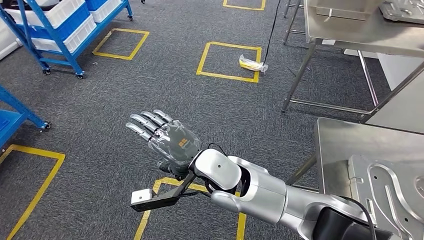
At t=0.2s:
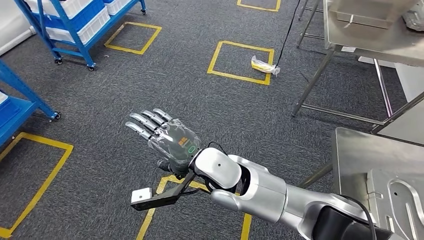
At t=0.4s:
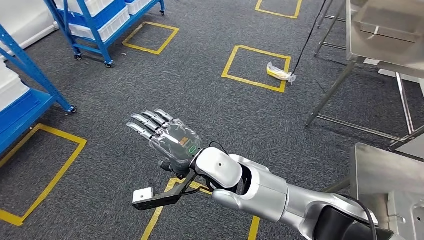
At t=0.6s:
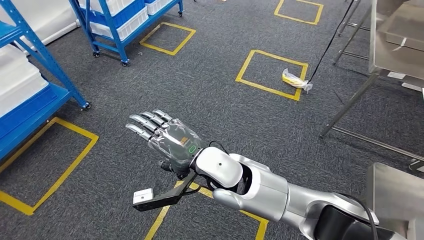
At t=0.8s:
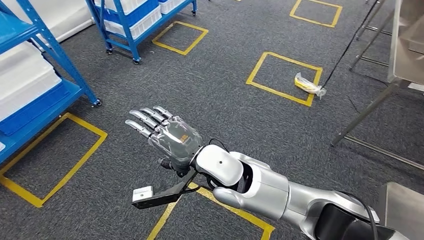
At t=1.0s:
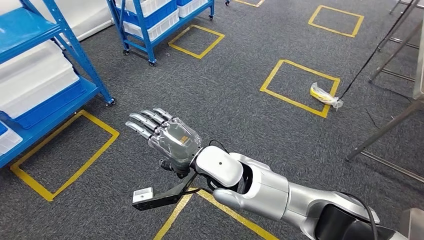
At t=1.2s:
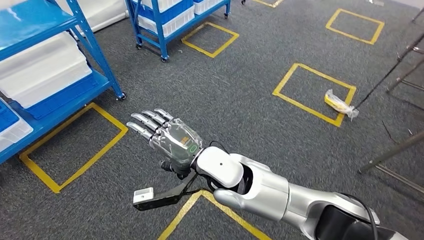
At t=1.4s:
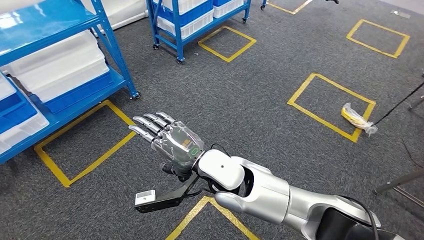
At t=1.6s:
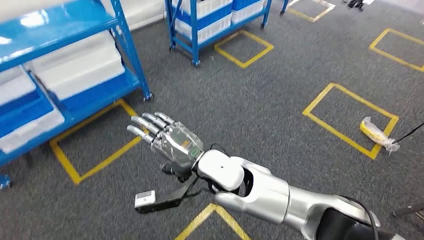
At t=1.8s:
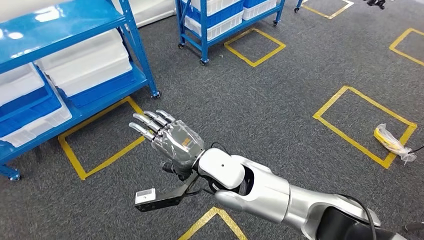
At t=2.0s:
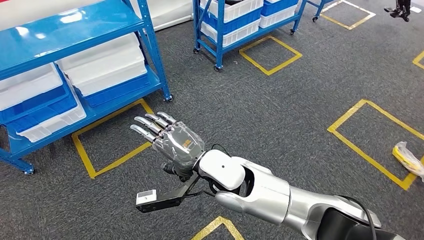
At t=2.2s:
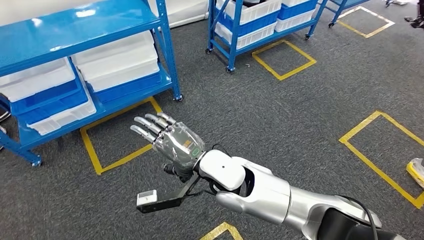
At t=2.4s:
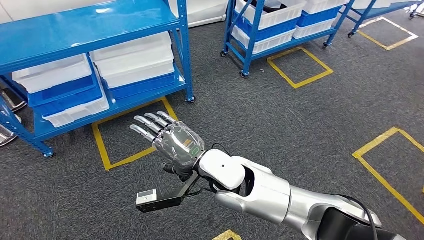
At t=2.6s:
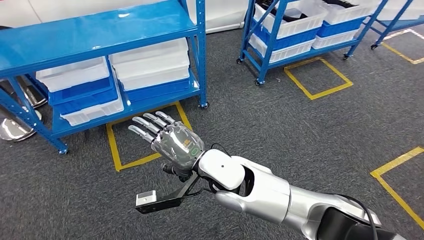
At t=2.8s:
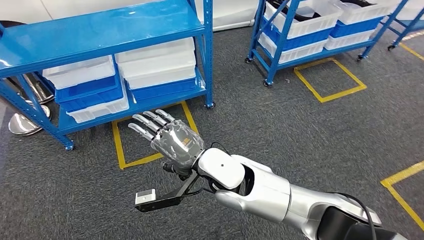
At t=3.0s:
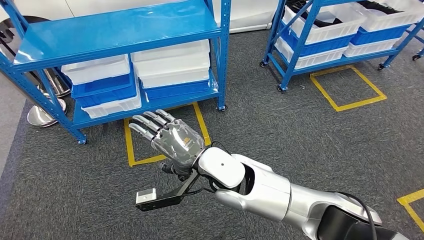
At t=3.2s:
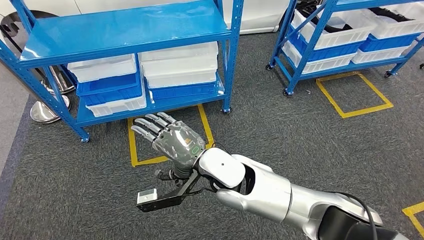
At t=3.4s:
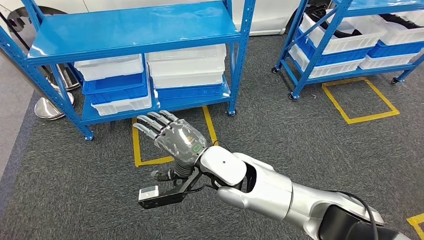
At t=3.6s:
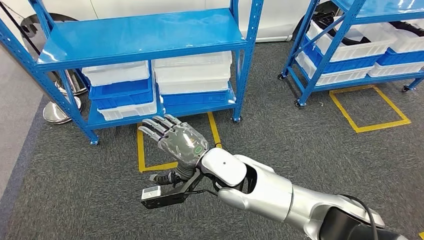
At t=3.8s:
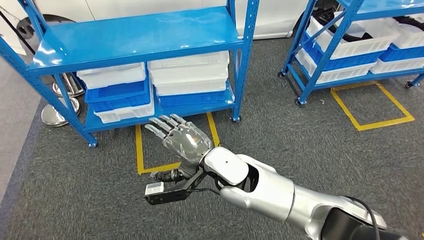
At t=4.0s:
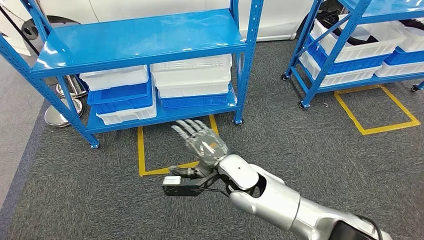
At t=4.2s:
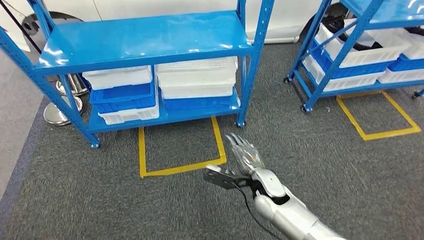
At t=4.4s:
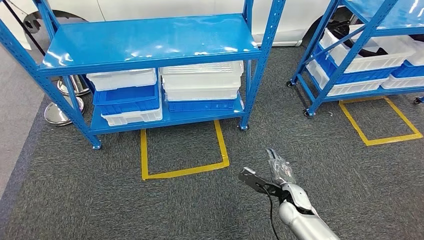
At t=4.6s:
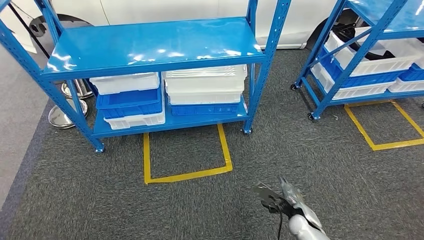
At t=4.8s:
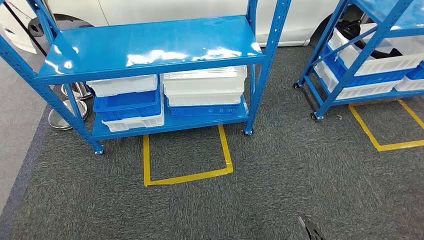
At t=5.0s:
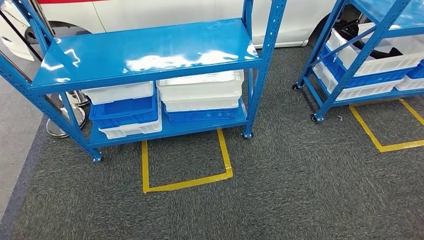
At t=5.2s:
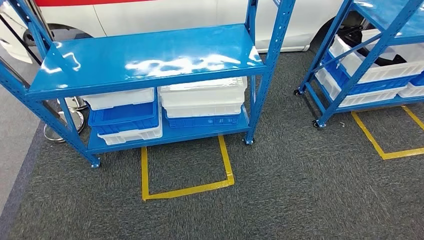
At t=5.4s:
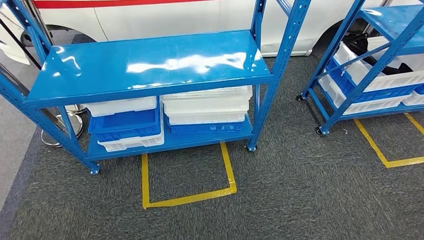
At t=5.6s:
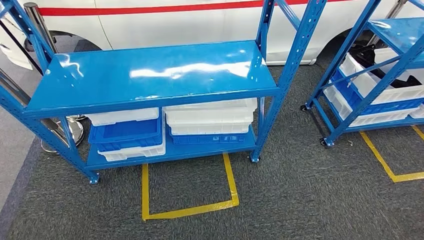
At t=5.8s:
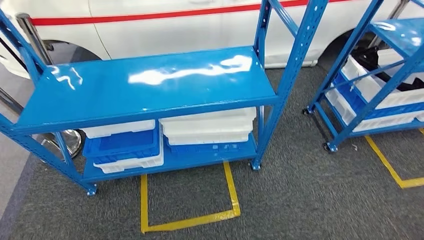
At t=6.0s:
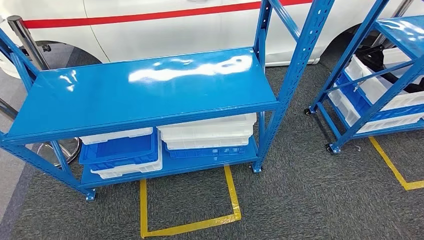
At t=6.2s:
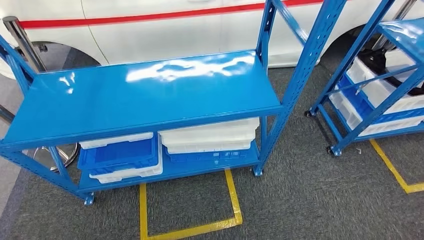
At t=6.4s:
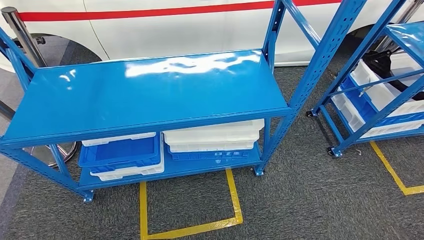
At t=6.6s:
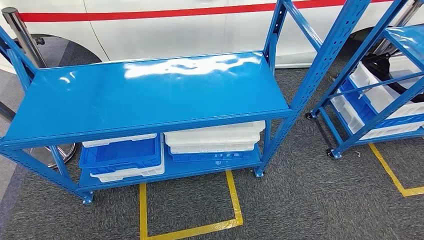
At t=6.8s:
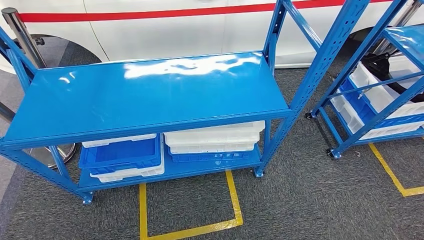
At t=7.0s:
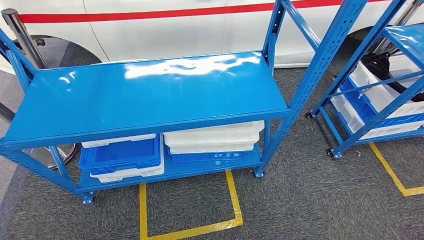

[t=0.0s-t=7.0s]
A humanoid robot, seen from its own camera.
Step, t=0.0s to t=7.0s: Move to the initial position of the shelf.

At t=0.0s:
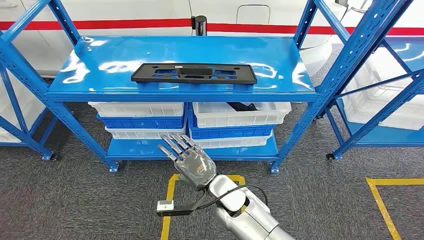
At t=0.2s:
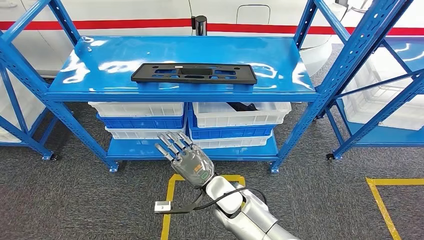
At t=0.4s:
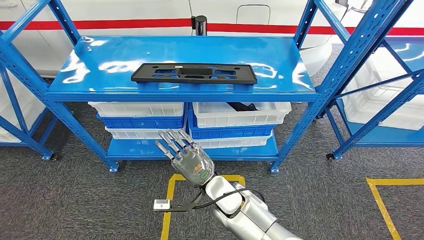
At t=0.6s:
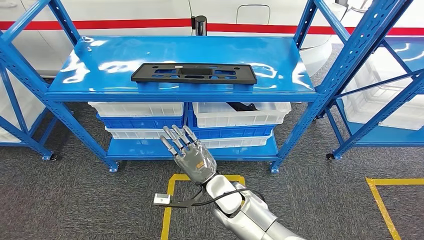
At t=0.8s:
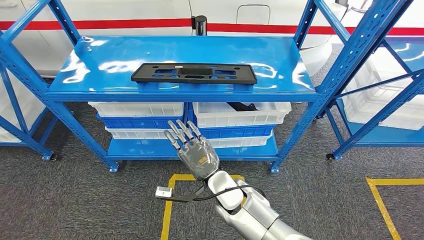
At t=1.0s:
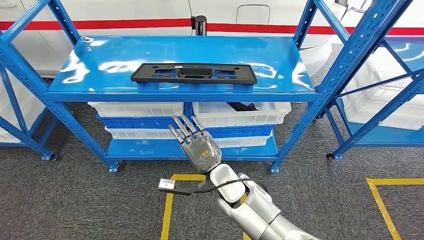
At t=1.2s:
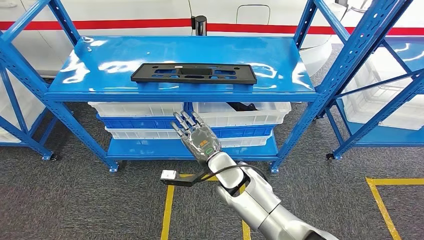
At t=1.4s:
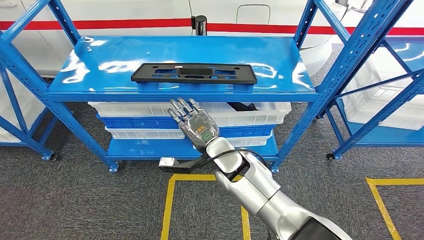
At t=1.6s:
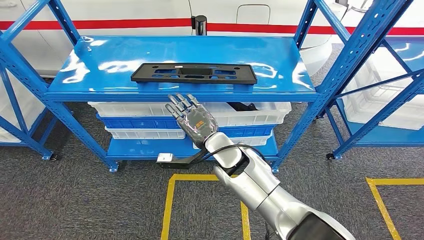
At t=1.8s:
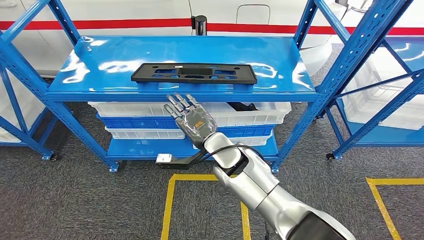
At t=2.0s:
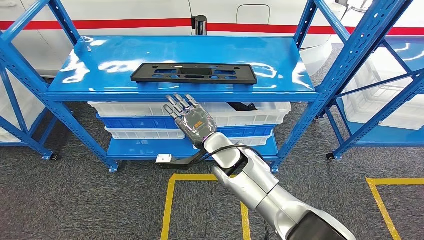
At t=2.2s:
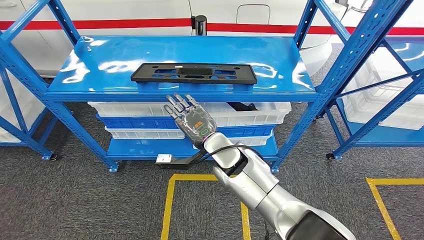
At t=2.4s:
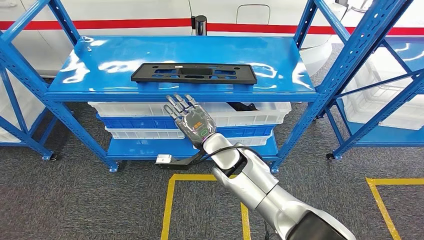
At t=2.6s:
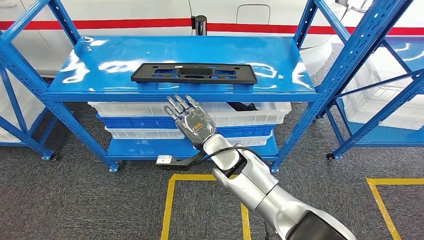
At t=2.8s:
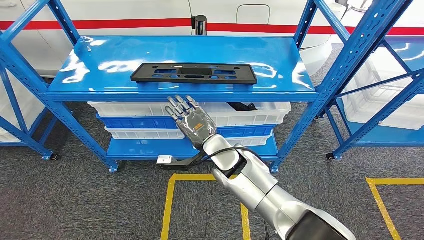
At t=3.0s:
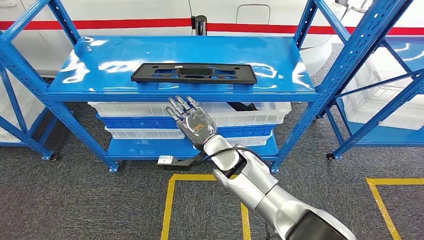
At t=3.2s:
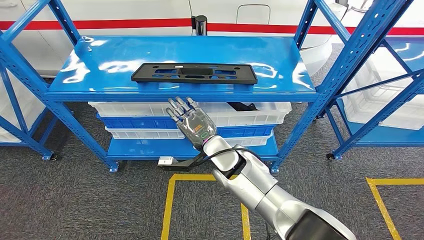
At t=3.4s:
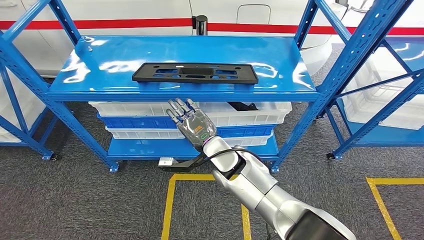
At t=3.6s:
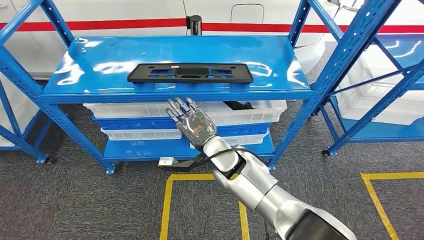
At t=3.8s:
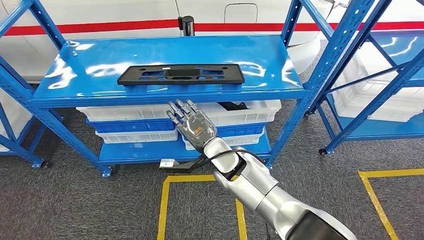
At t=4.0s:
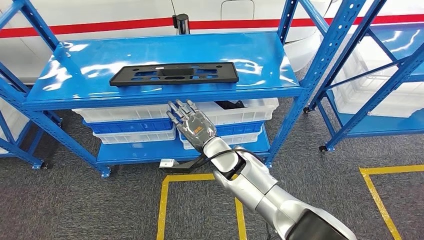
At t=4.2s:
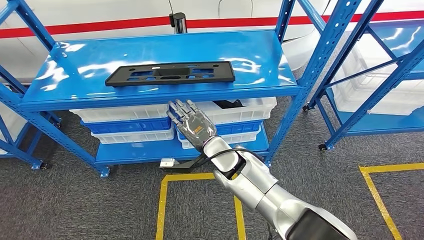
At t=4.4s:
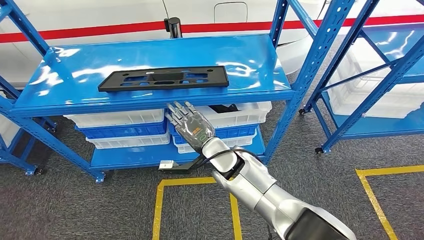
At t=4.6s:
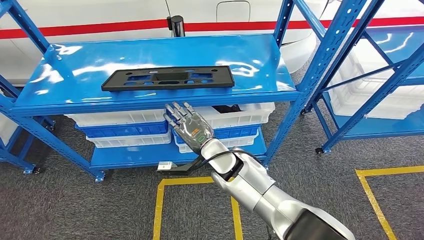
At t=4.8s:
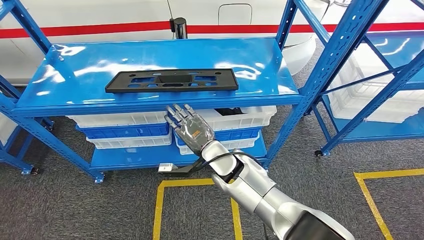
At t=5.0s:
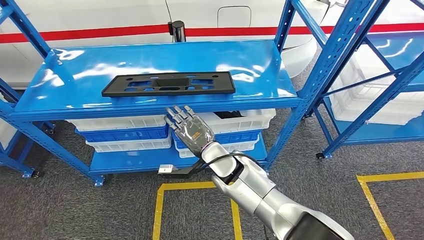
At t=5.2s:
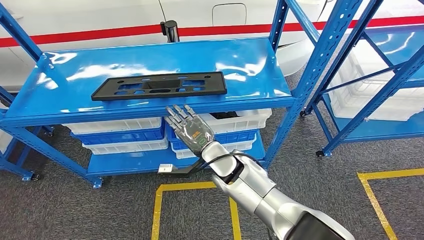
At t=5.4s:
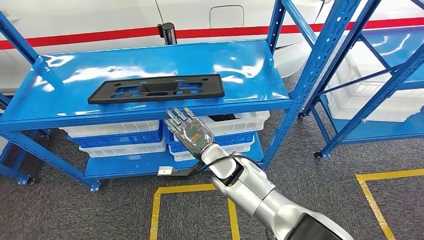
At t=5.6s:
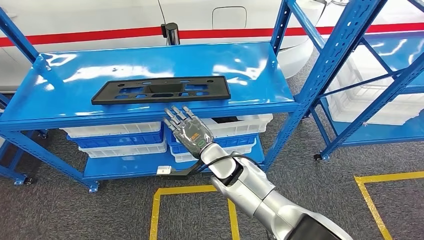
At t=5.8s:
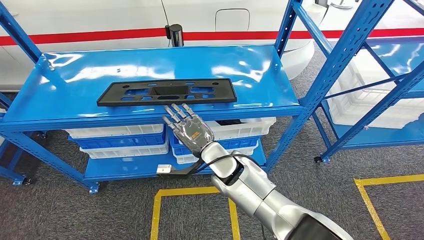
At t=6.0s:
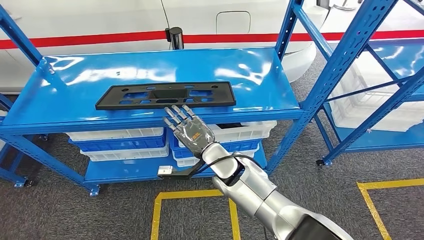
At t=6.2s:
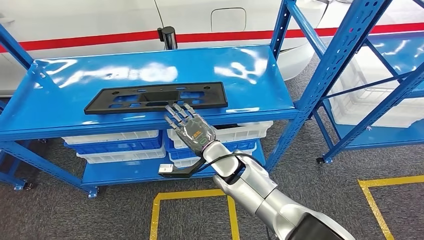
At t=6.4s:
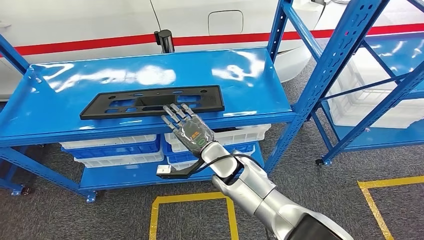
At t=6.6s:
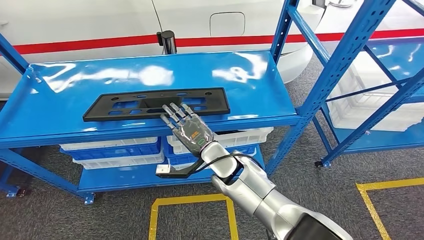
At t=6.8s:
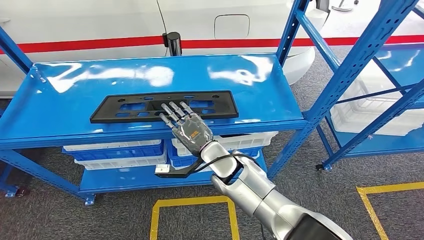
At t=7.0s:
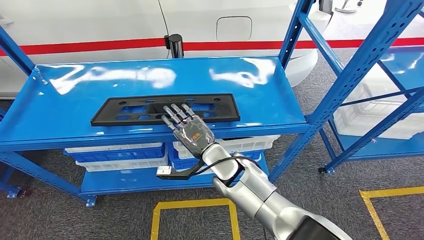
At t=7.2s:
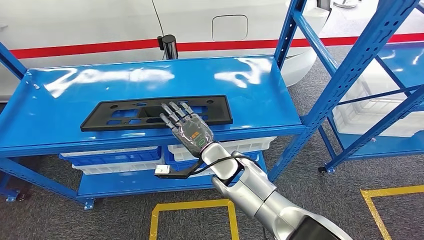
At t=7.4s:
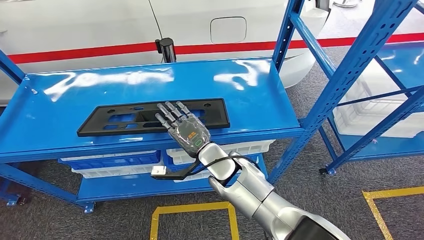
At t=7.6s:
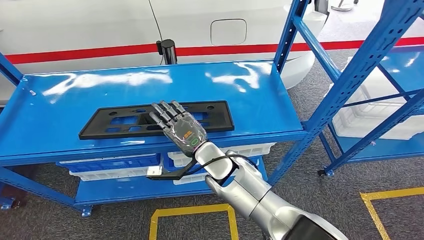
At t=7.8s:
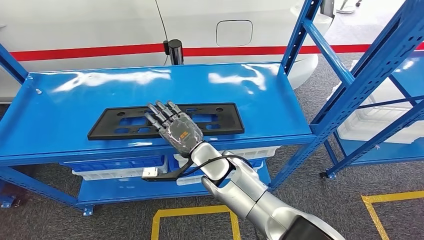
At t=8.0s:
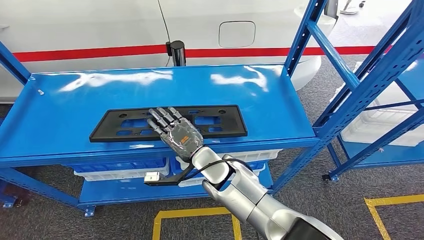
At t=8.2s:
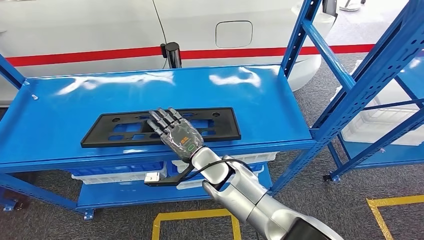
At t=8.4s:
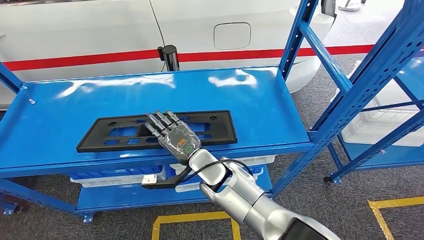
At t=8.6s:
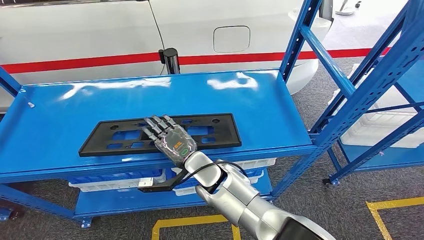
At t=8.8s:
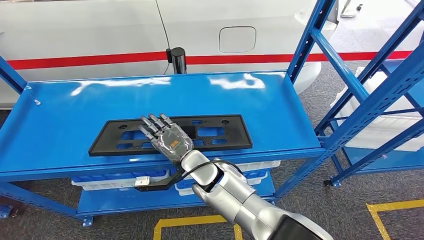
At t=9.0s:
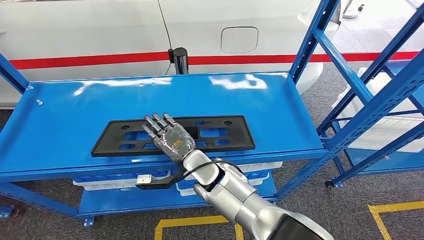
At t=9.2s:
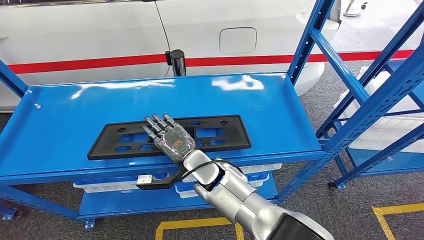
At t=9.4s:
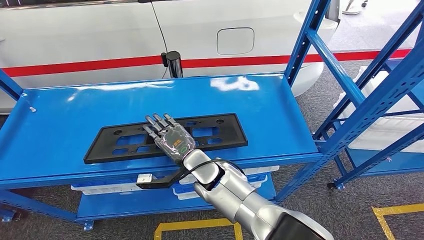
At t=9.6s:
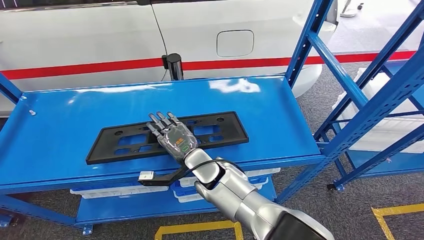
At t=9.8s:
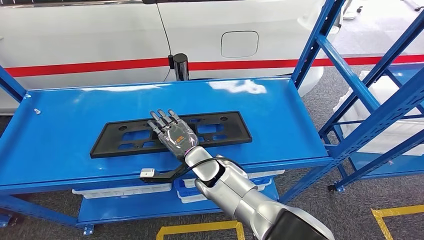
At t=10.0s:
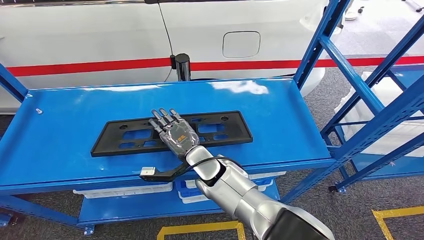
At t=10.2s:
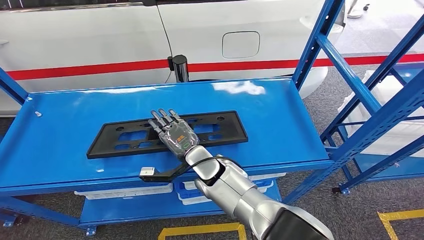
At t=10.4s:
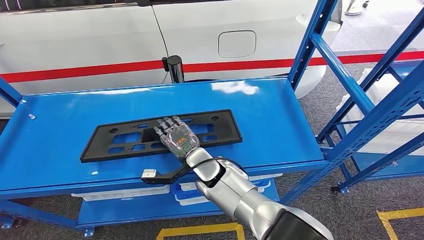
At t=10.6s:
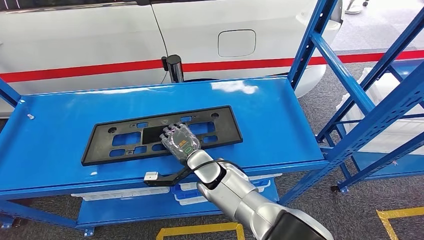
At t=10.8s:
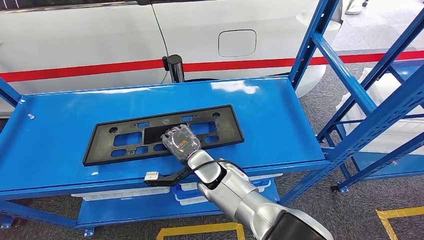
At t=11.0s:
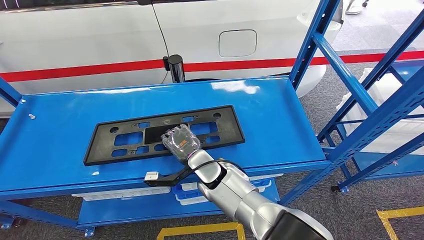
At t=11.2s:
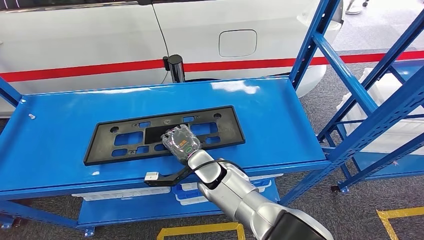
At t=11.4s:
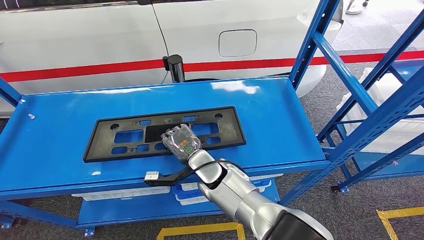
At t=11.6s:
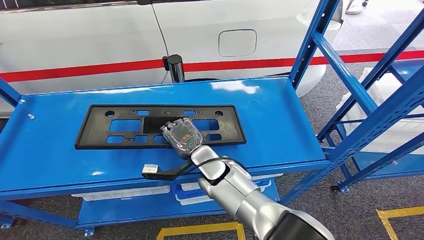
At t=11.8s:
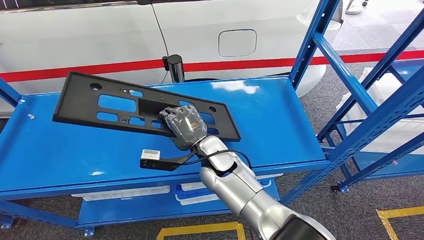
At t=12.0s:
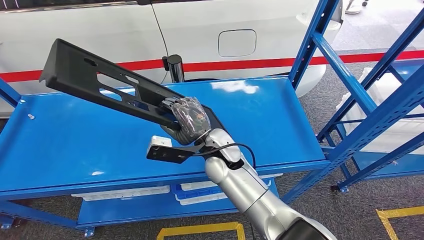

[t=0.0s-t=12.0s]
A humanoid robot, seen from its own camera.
t=1.6s to t=3.0s: Both hands stay put.
